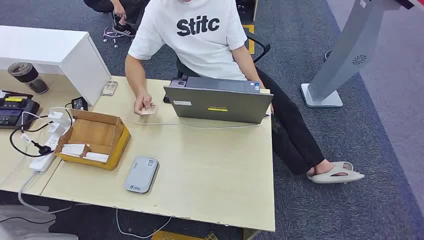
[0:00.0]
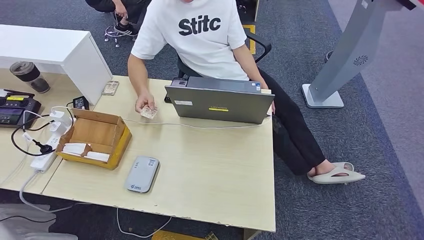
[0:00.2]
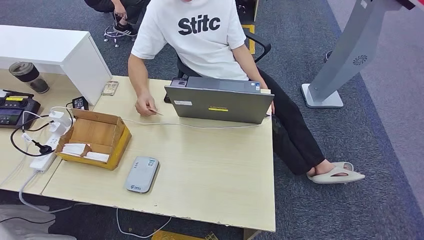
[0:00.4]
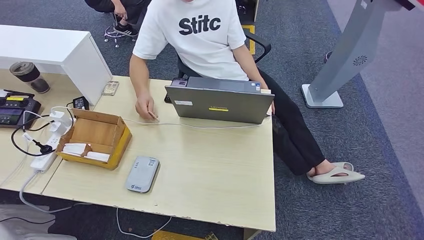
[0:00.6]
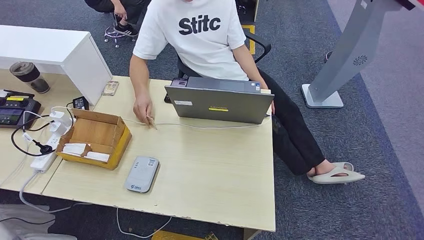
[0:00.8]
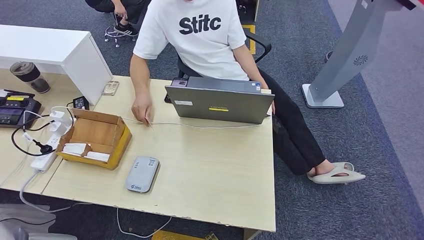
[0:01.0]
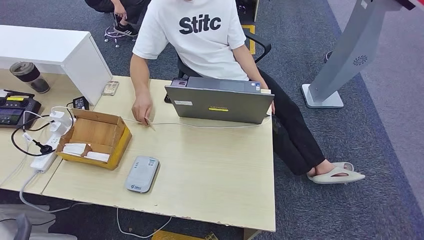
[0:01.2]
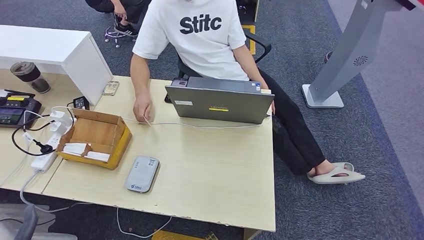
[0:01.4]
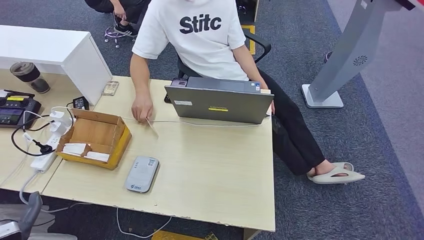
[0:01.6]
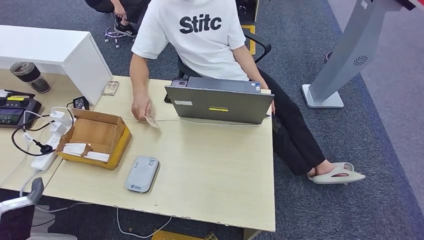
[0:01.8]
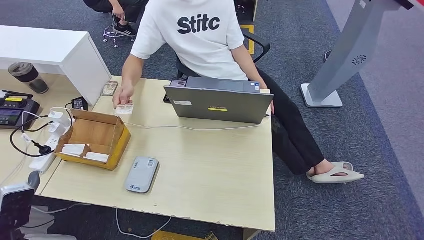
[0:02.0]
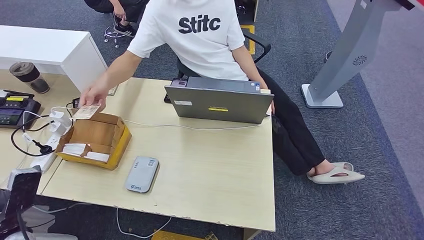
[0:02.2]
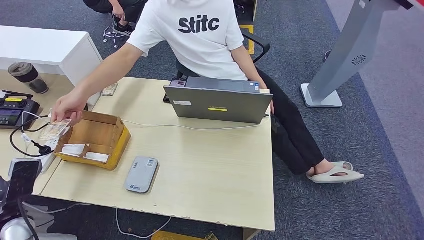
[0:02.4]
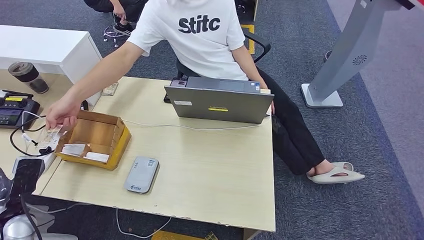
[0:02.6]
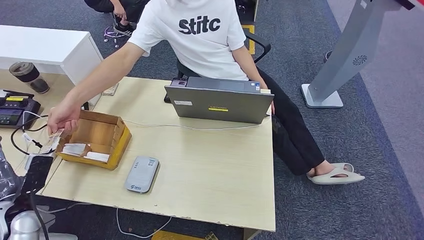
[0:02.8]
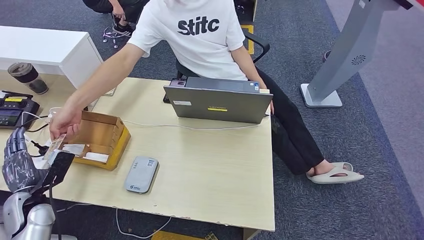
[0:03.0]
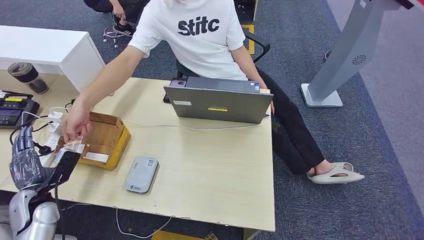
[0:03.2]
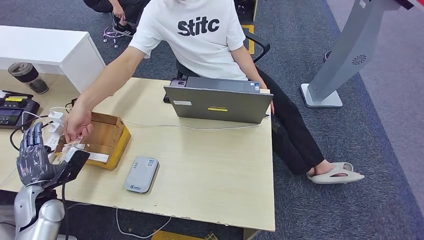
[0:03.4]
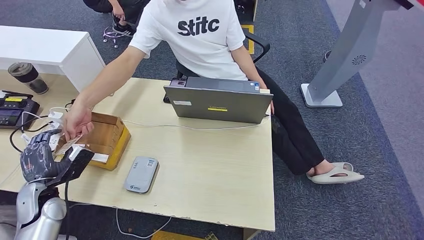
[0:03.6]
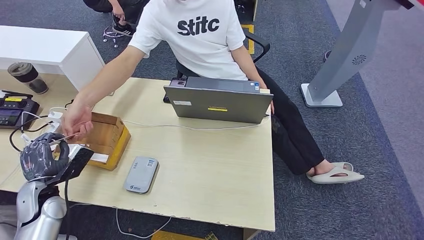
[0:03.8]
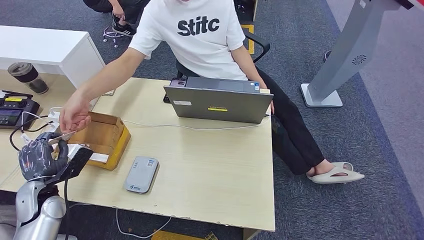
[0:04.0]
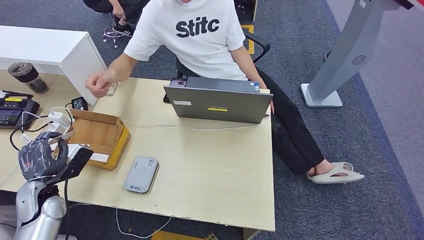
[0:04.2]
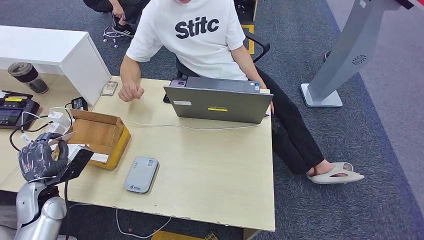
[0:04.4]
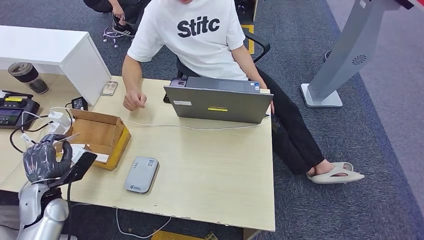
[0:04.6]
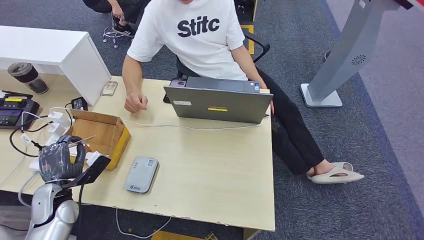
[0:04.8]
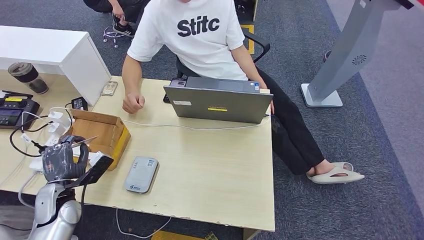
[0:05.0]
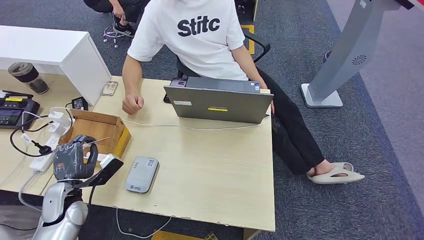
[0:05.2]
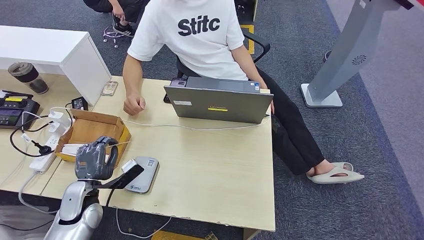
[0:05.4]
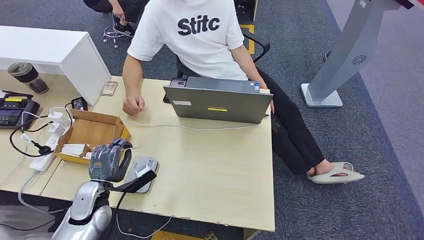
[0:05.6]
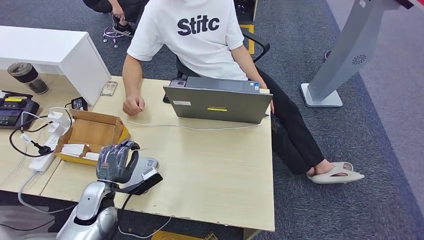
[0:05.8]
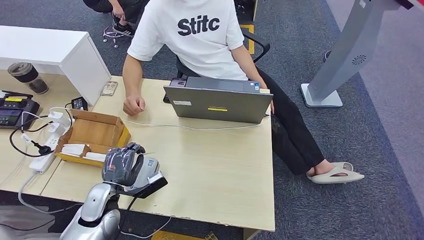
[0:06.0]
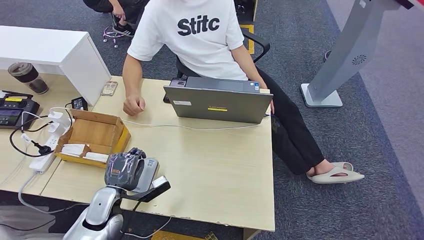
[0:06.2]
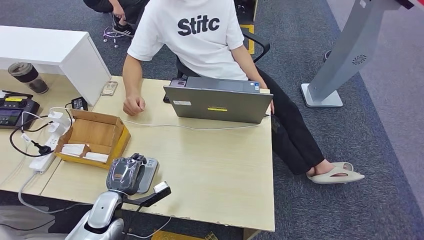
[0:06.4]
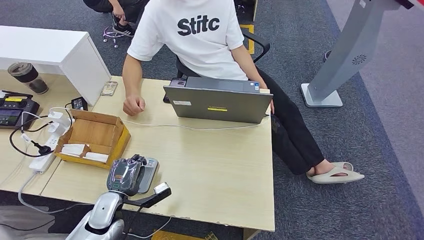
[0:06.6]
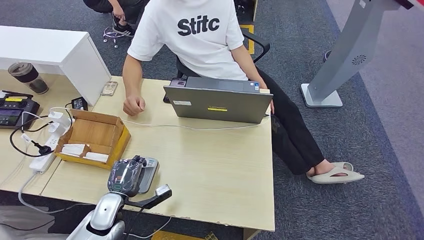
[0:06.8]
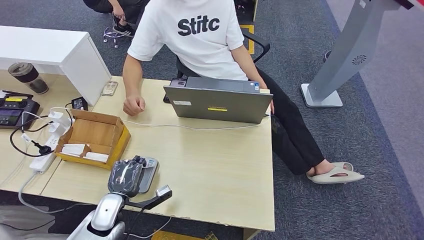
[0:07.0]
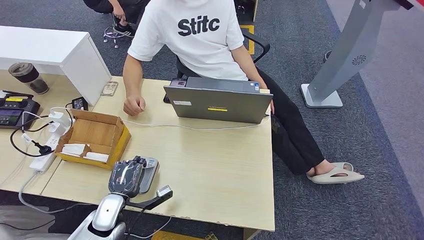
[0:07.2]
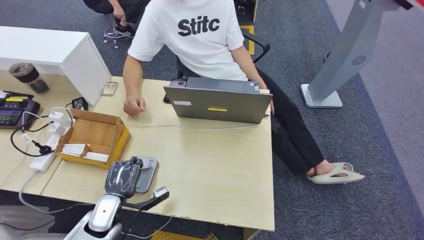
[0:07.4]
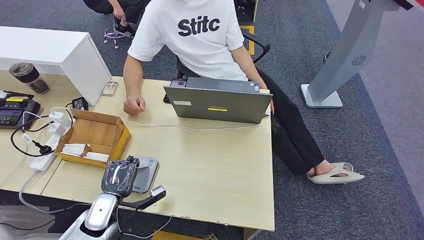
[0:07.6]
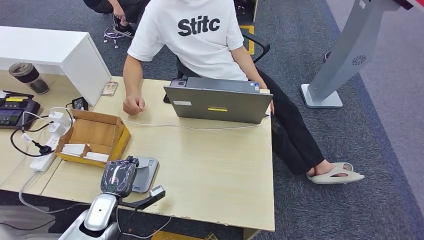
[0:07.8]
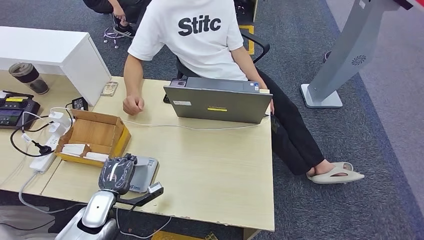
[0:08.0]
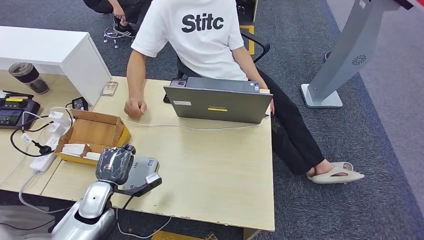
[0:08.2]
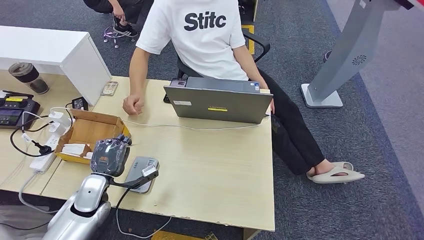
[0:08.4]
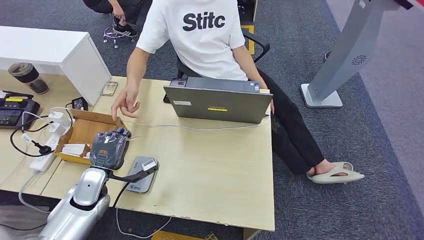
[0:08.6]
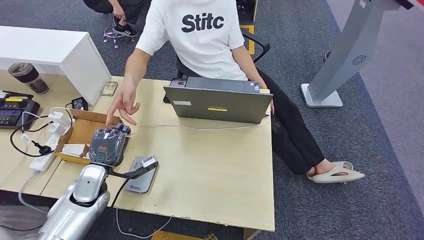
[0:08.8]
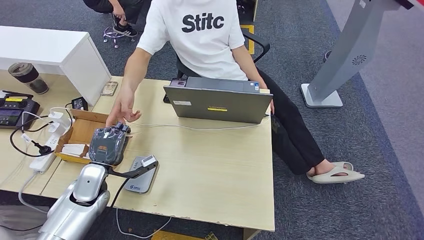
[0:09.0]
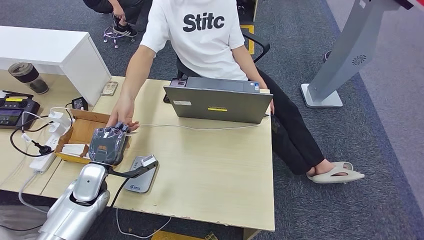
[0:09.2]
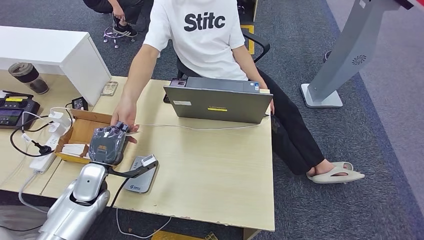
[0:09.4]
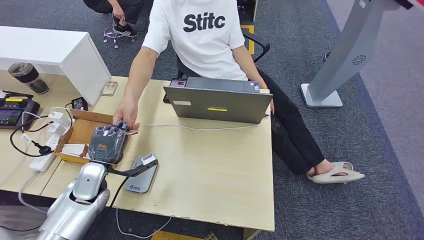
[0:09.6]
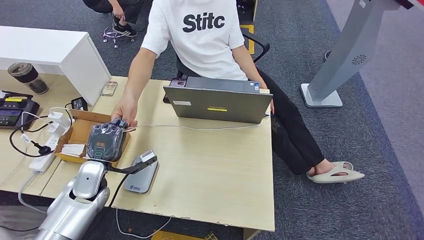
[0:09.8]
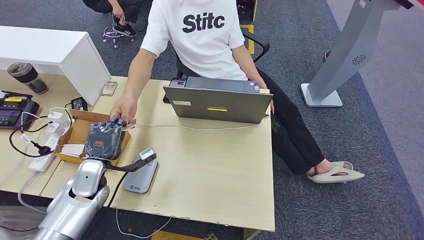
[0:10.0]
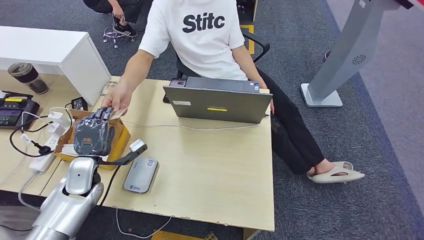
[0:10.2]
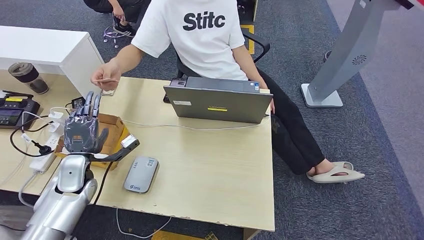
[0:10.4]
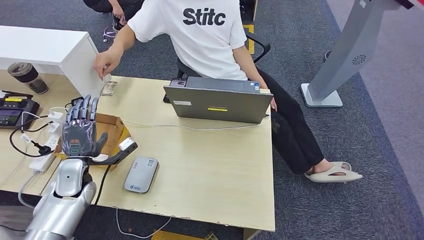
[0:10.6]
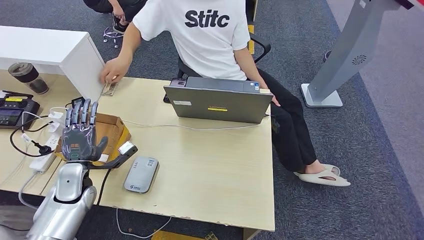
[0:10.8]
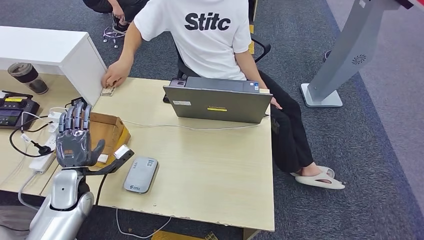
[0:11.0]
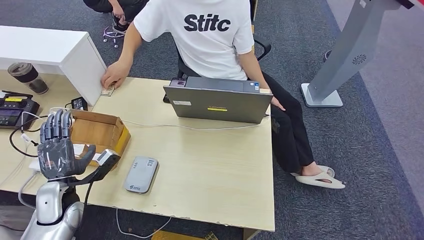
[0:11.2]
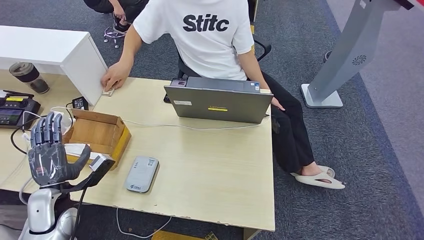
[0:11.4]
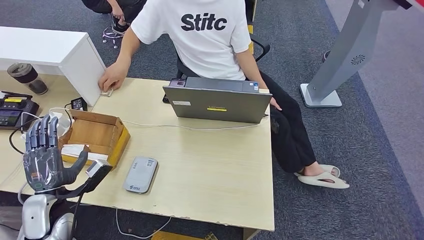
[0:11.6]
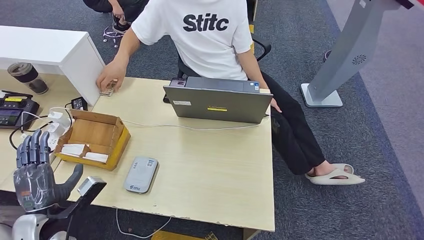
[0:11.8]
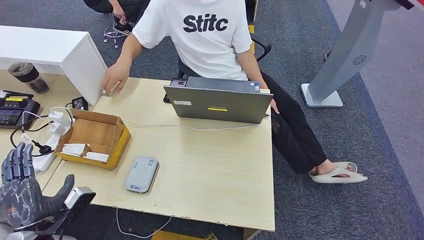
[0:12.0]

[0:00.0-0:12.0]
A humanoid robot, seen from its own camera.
Step, 0.0 to 3.8 s: Take the ID card from the person's hand.
Step, 4.0 to 7.2 s: Place the ID card on the card reader.
Step, 7.6 to 10.0 s: Hand the ID card to the person.
1.6 to 3.0 s: The left hand travels forward and to the left by roughly 15 cm.
3.0 to 4.4 s: The hands move only a little.
4.4 to 6.0 s: The left hand travels to the right by approximately 15 cm.
6.0 to 7.6 s: The hands make only small movements.
7.6 to 9.0 s: The left hand moves upward and forward, approximately 10 cm.
9.0 to 10.4 s: The hands make only small movements.
10.4 to 12.0 s: The left hand goes approximately 15 cm backward.

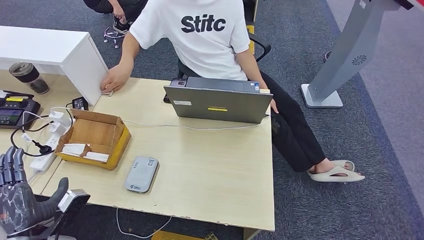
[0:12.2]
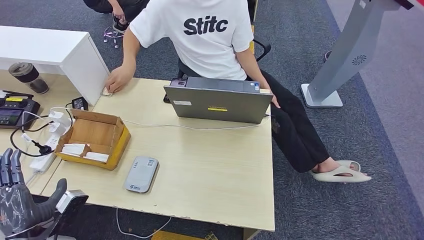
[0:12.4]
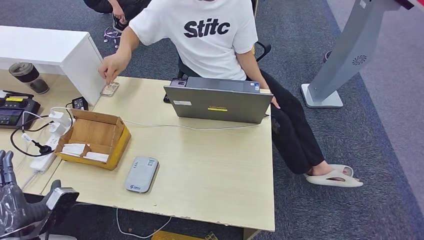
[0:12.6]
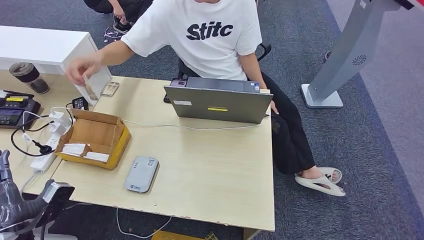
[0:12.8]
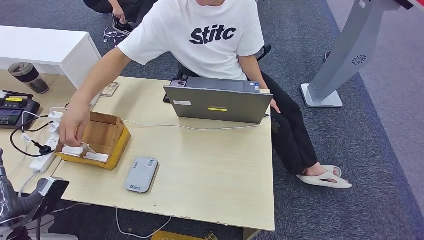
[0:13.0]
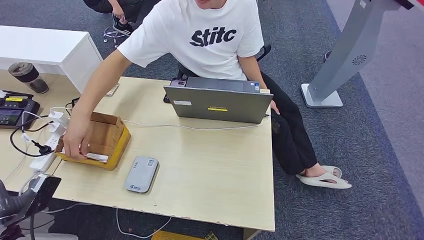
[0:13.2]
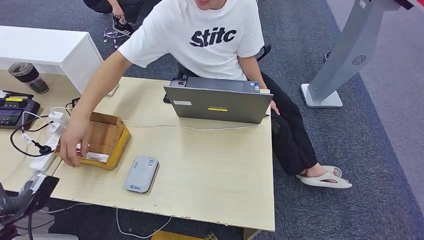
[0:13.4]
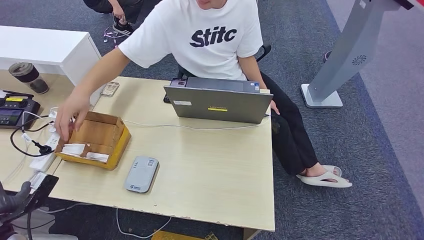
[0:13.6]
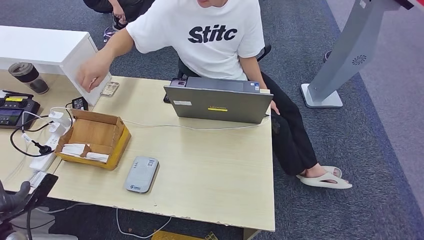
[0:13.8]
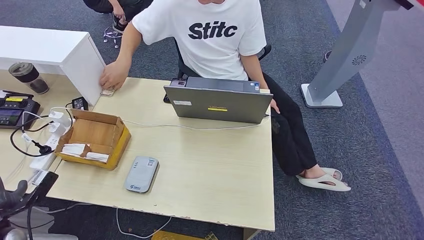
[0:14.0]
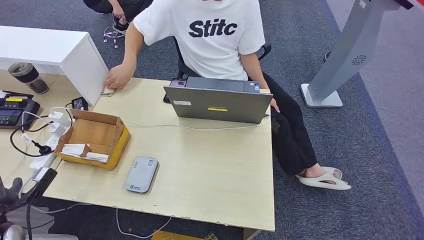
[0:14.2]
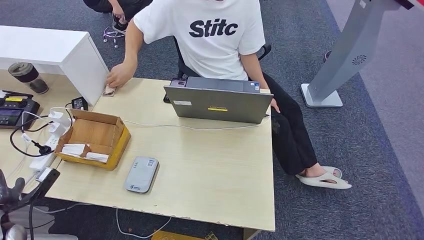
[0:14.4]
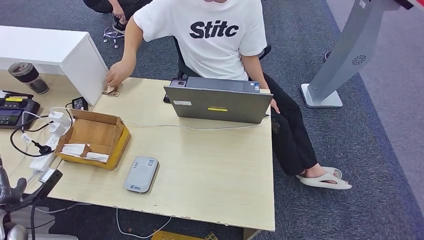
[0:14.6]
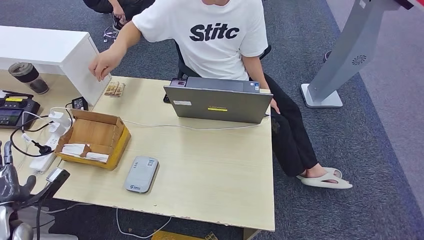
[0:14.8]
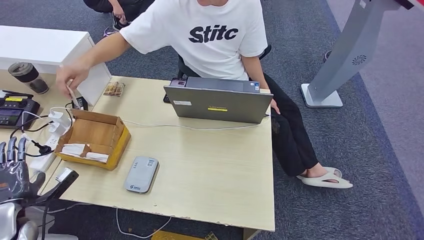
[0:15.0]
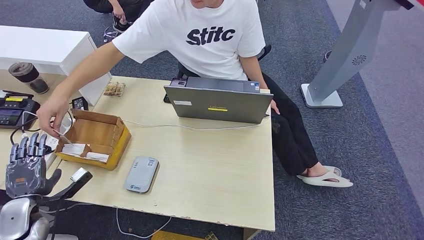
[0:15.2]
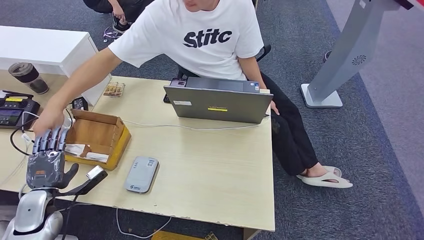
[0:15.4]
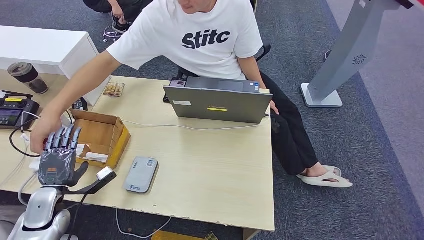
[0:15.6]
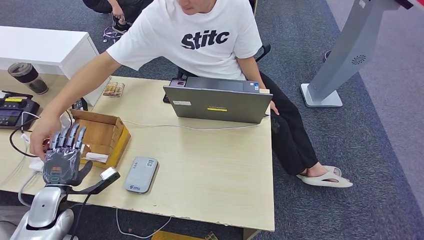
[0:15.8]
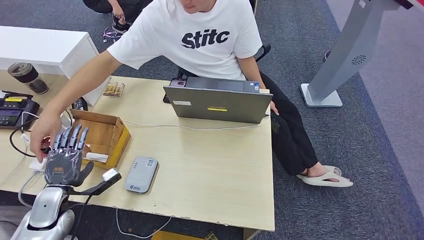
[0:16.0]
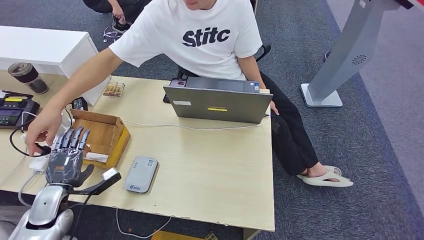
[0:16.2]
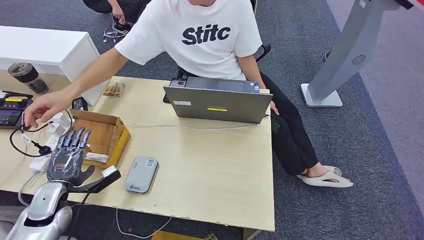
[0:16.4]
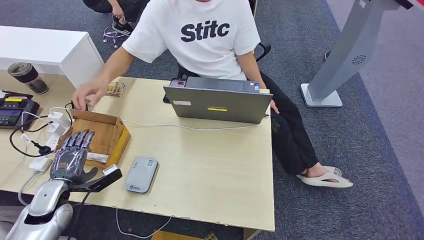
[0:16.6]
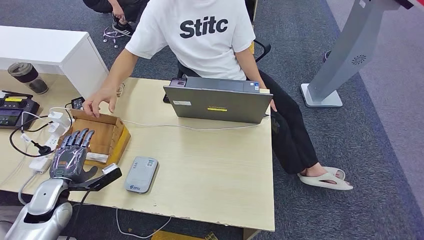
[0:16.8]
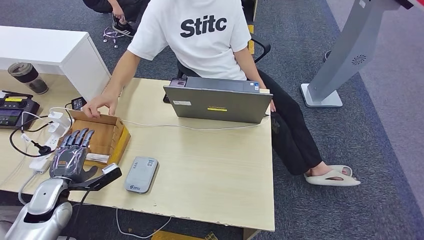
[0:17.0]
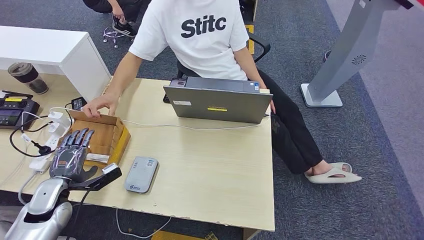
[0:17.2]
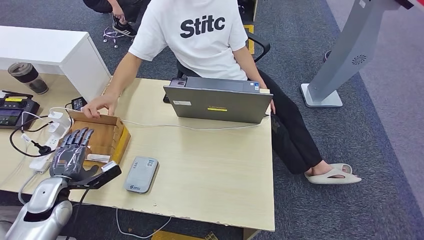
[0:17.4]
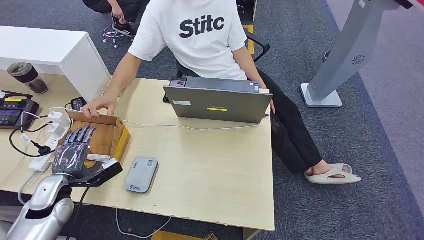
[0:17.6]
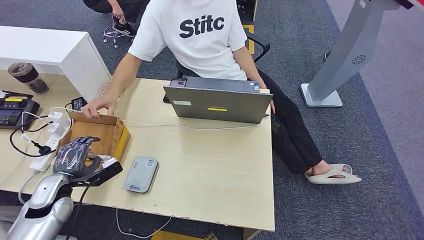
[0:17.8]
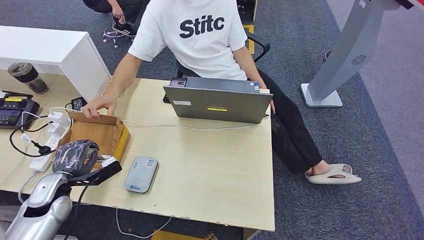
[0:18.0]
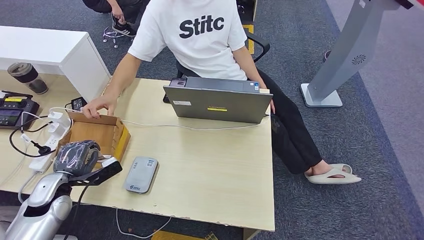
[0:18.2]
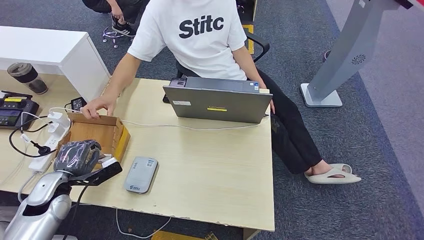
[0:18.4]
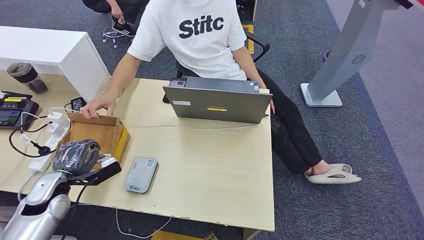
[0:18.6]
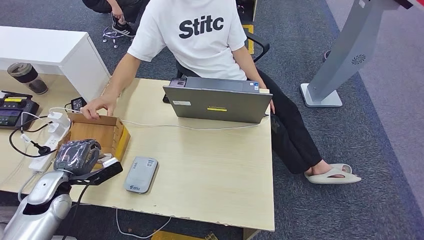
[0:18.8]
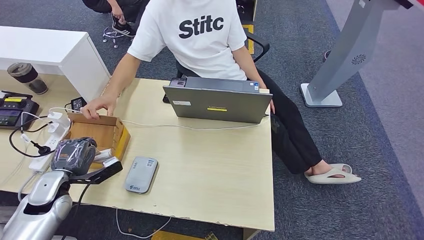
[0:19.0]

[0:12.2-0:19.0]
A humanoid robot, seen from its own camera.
12.2 to 13.6 s: The left hand moves to the left, about 10 cm.
13.6 to 15.0 s: The hands make only small movements.
15.0 to 16.2 s: The left hand goes about 10 cm to the right.
16.2 to 19.0 s: The hands stay close to where they were, moving slightly.
